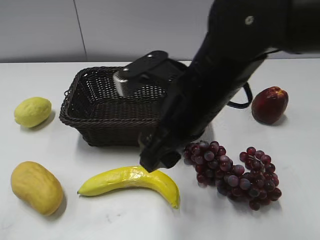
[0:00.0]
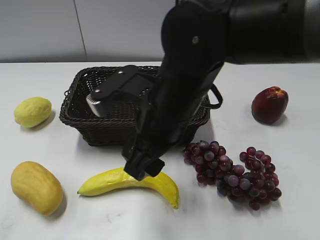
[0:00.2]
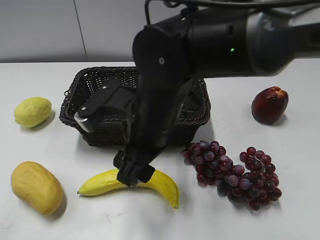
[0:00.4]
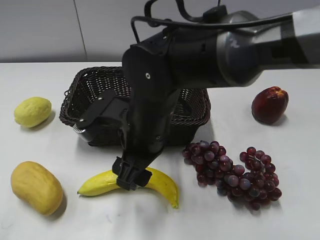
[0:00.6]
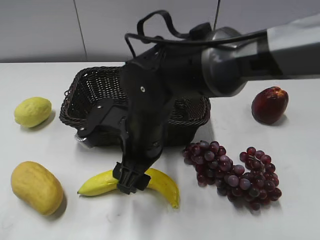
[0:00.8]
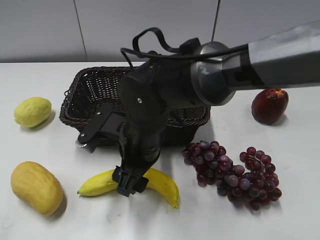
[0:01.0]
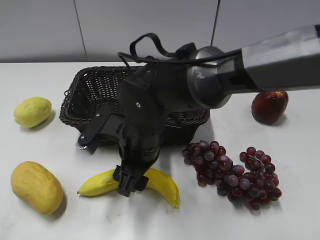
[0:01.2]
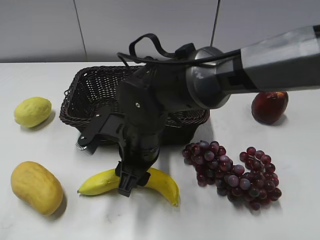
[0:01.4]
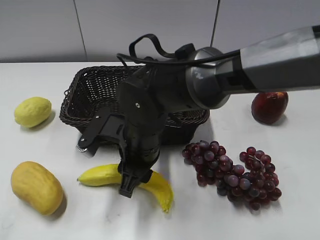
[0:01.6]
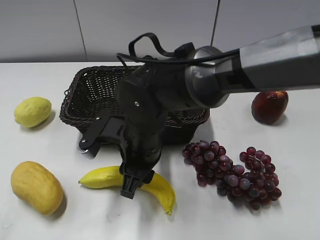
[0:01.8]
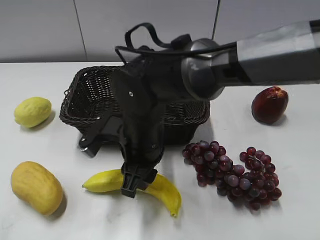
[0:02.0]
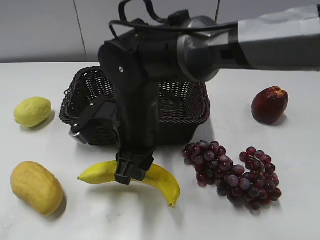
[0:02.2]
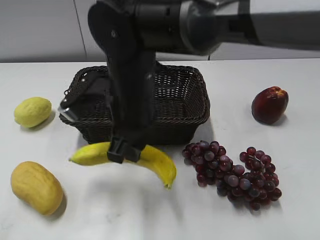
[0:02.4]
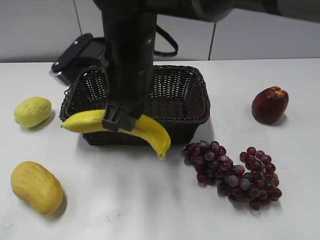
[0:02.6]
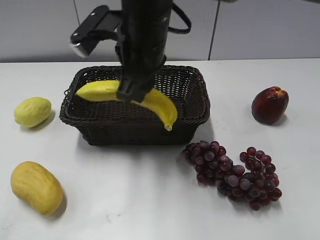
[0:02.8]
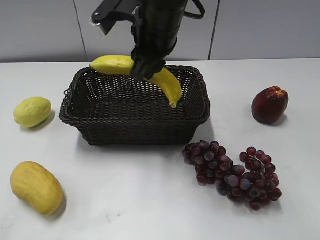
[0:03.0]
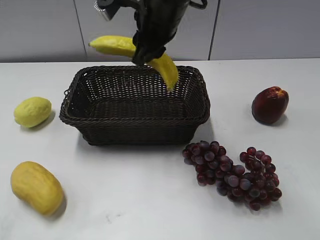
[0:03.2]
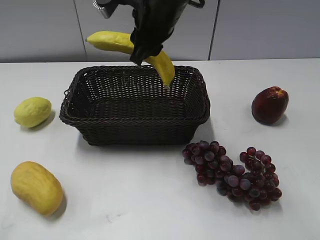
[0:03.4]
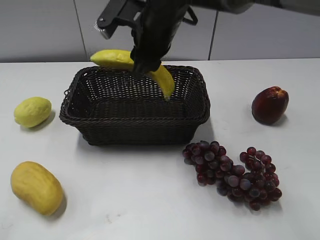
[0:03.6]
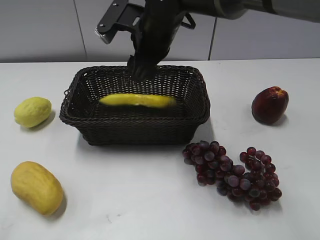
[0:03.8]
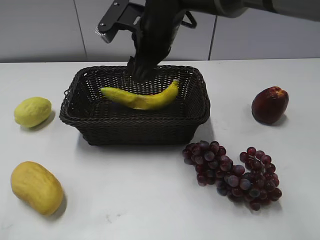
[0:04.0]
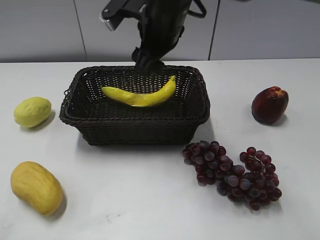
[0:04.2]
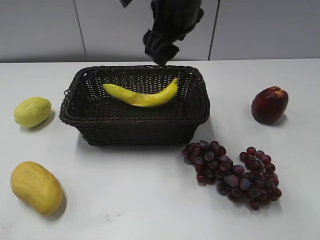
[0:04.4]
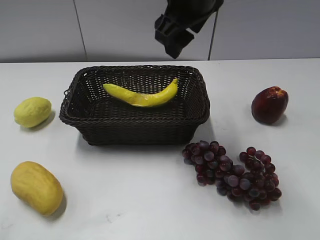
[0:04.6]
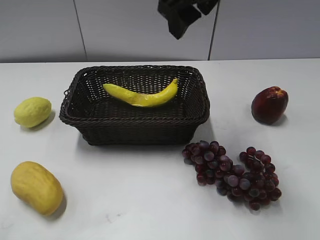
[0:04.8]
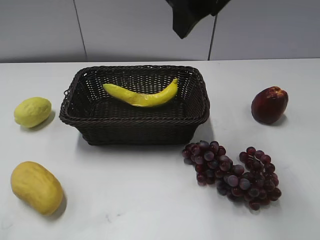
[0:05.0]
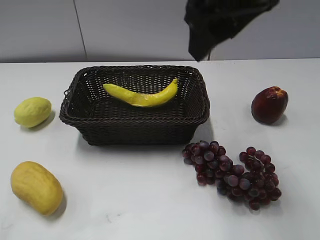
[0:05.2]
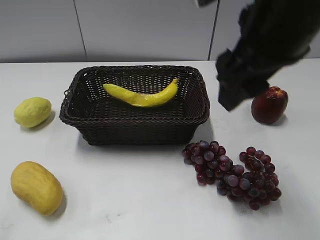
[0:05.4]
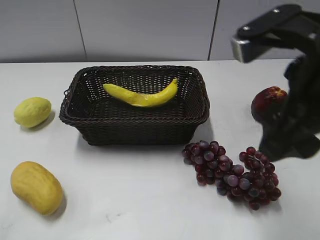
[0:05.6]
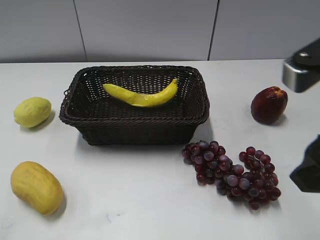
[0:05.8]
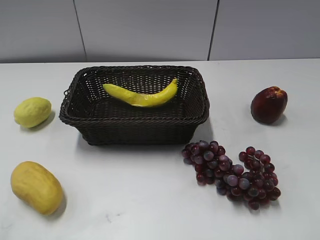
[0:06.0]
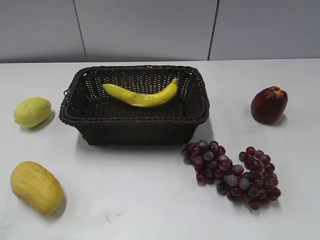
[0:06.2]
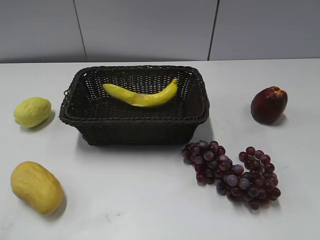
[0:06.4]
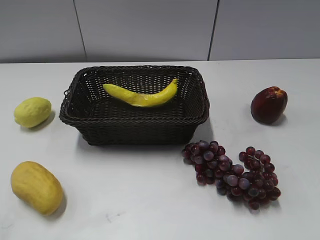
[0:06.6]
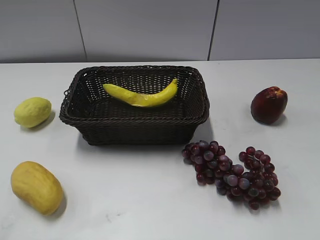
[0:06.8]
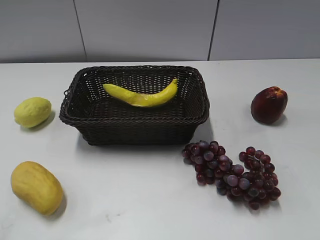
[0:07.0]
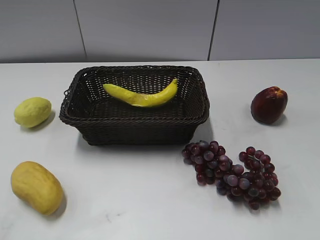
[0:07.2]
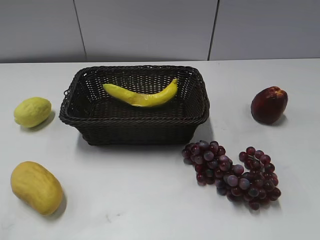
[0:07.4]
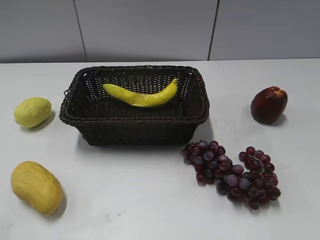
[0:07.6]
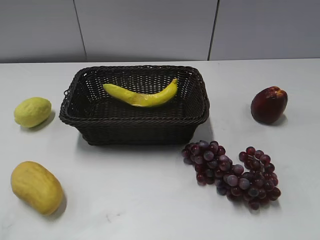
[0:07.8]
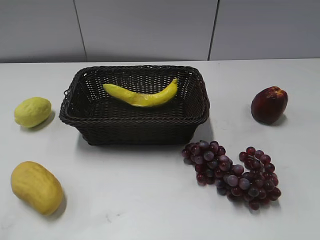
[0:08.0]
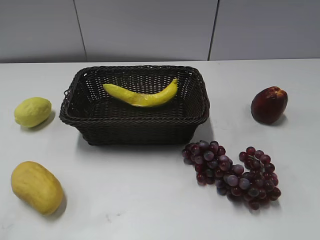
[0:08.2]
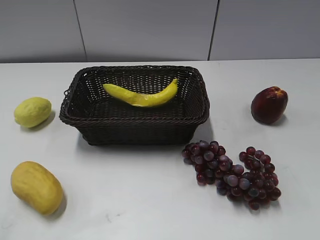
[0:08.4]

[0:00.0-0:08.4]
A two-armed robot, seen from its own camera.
Step, 0:00.0 to 0:01.4: Grasp the banana with right gripper.
Step, 0:01.8 to 0:03.8: Place the banana in the basket with right gripper.
0:00.0 to 0:01.4: The right gripper heads downward and to the left, covering some 15 cm, and closes up.
0:01.4 to 0:02.8: The right gripper shifts some 15 cm upward and forward, and closes.
0:02.8 to 0:04.2: The right gripper is displaced forward by some 5 cm, and opens.
0:04.2 to 0:05.6: The right gripper goes some 25 cm backward and to the right.
0:05.6 to 0:07.0: The right gripper travels backward and to the right by approximately 25 cm.

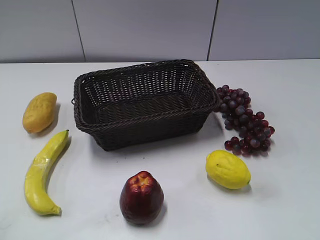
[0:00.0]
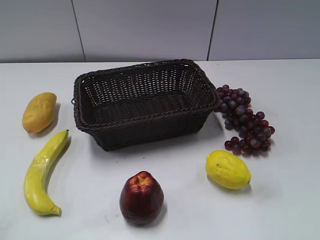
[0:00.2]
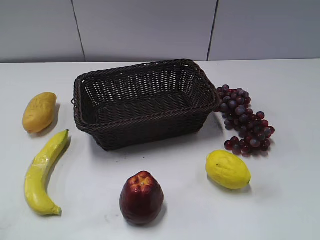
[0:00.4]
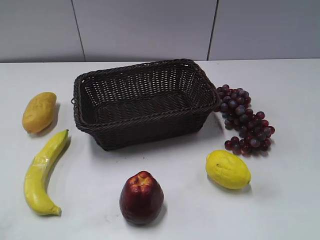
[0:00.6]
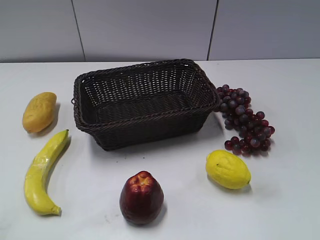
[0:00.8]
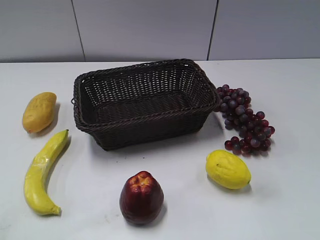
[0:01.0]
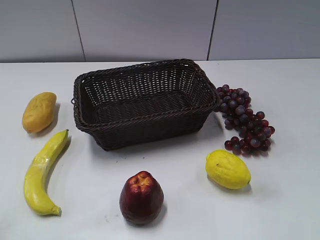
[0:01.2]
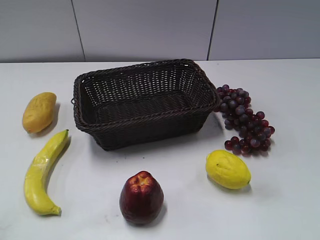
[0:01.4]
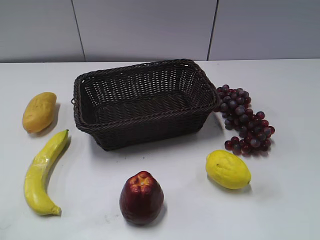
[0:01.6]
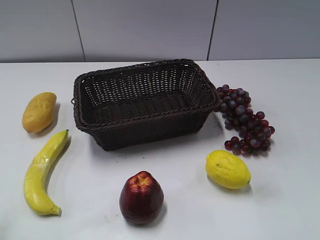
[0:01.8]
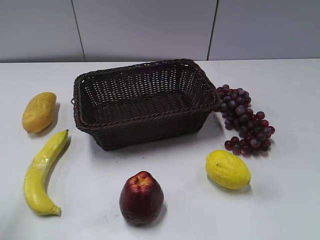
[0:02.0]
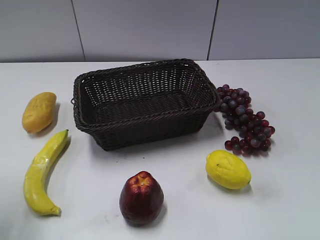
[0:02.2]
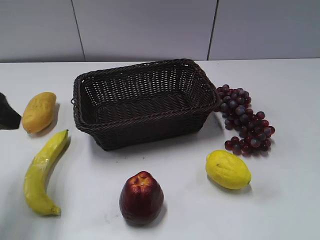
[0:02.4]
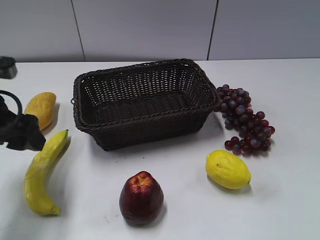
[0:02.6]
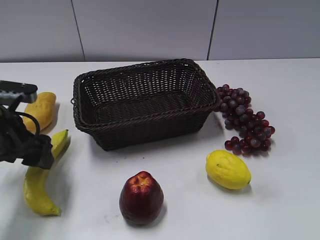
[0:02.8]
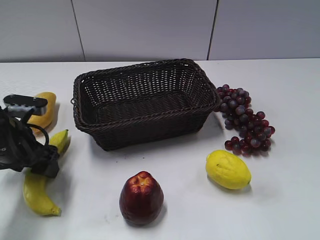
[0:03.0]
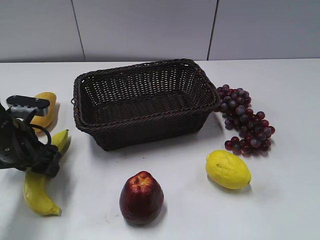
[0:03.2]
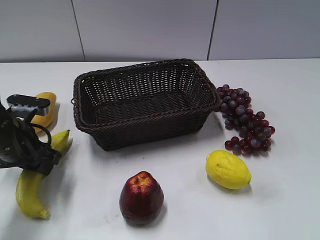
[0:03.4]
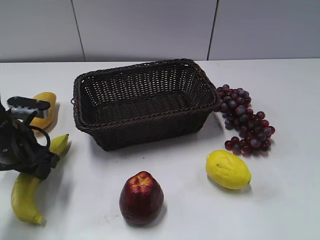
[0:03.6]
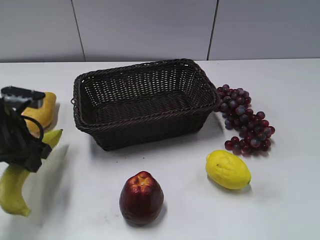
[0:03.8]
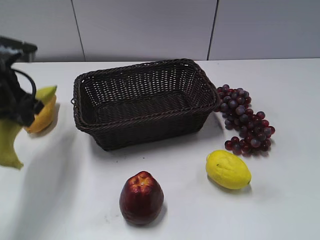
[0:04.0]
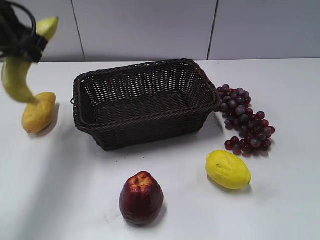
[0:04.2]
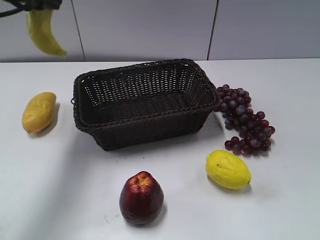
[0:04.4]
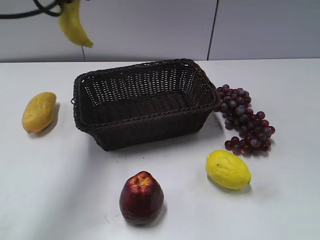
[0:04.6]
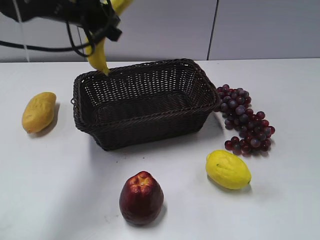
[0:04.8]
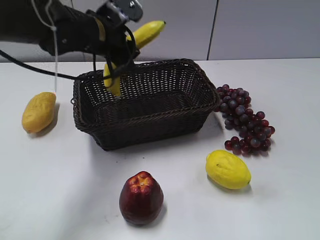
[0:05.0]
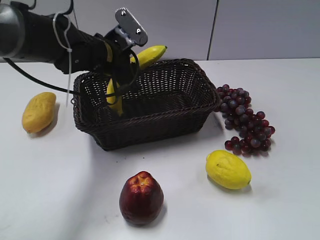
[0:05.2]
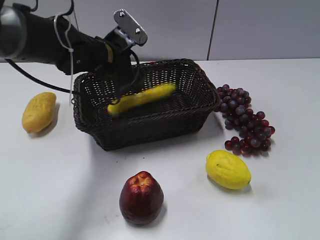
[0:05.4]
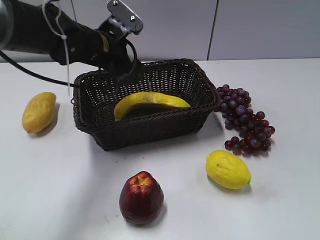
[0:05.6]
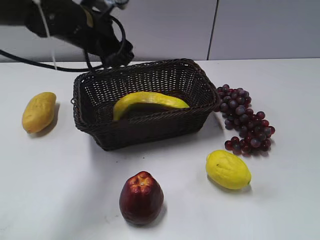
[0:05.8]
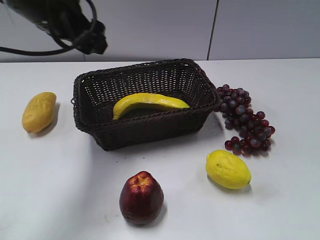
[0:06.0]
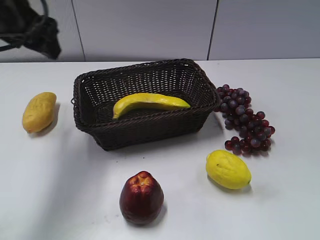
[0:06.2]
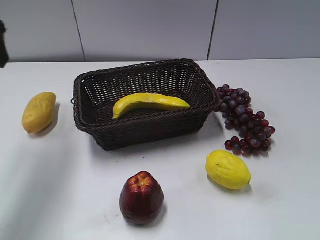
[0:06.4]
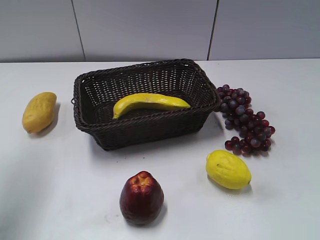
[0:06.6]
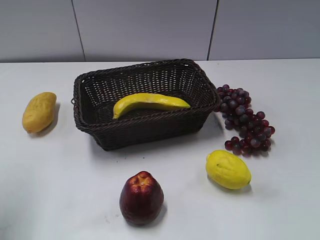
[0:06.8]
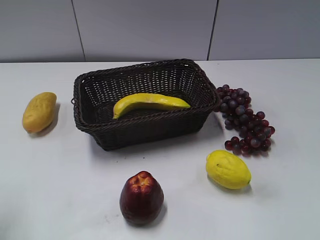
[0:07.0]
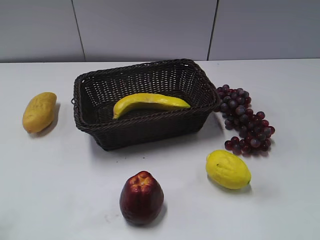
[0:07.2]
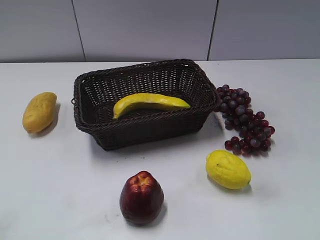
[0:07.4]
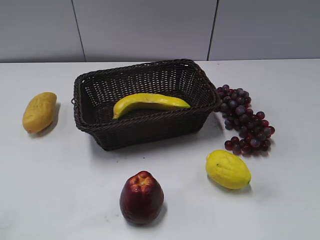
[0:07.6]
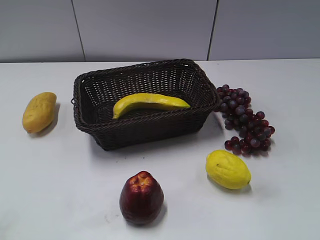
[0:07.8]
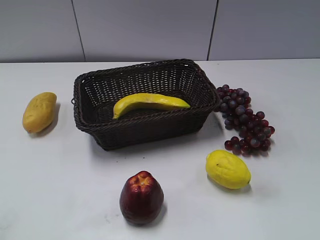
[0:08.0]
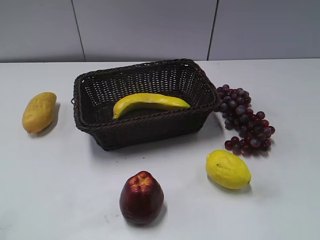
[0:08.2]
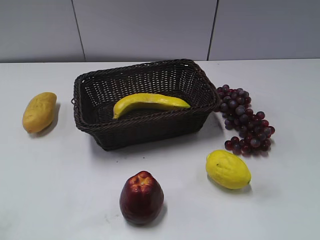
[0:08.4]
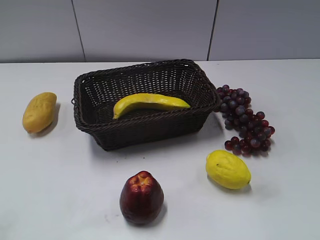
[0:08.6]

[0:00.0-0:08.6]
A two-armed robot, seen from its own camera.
Step, 0:02.4 to 0:03.4: Grasp the banana with left gripper.
Step, 0:03.8 to 0:05.4: Place the banana in the basket with left gripper.
0:01.4 to 0:02.8: The left gripper shifts about 30 cm forward and downward, and opens.
0:02.8 to 0:04.4: The left gripper heads upward and forward, covering roughly 20 cm, and closes up.
0:04.4 to 0:05.8: The left gripper is displaced to the right and downward by roughly 15 cm, and opens its fingers.
0:05.8 to 0:07.2: The left gripper shifts some 35 cm backward and to the left.

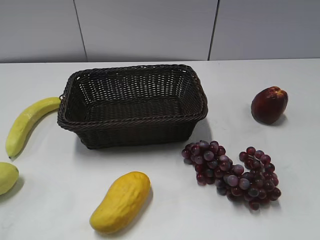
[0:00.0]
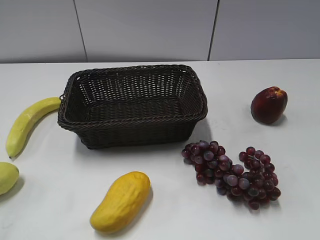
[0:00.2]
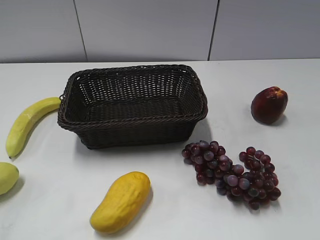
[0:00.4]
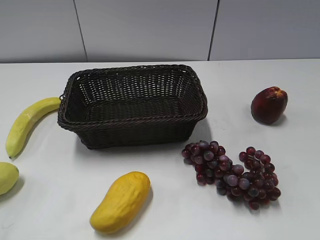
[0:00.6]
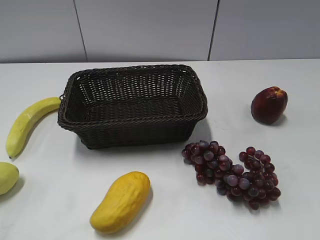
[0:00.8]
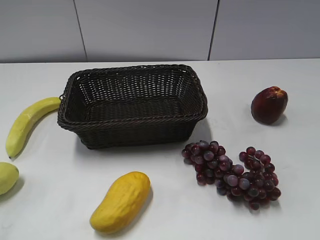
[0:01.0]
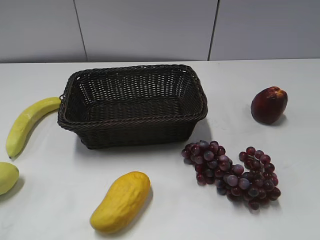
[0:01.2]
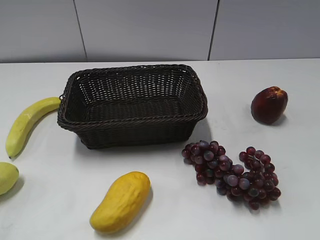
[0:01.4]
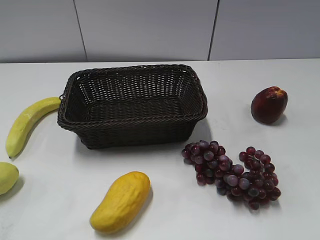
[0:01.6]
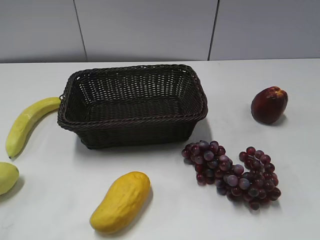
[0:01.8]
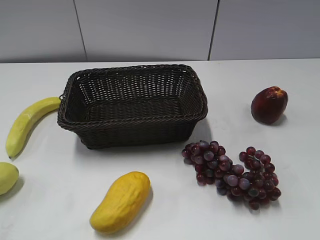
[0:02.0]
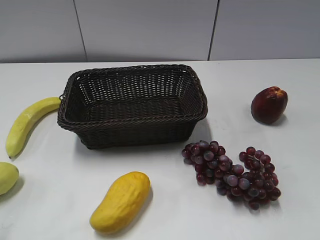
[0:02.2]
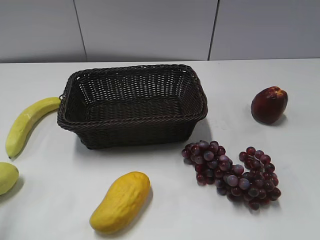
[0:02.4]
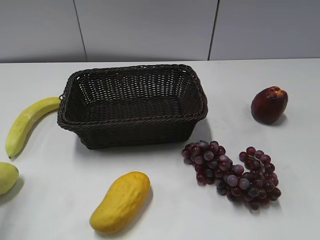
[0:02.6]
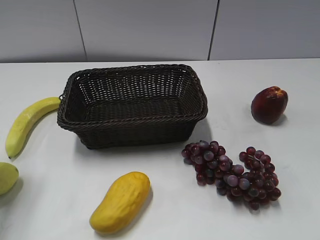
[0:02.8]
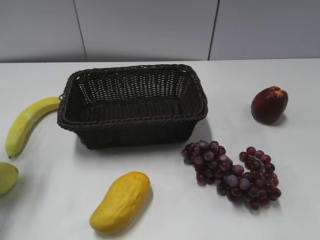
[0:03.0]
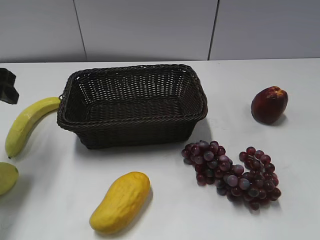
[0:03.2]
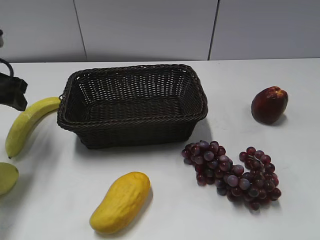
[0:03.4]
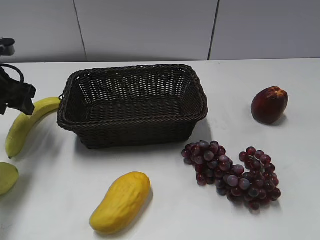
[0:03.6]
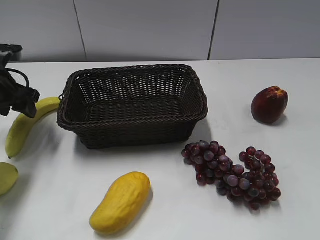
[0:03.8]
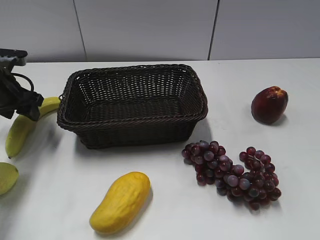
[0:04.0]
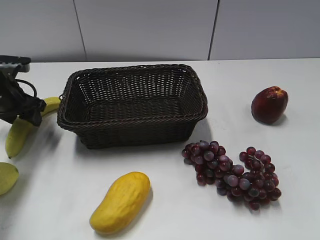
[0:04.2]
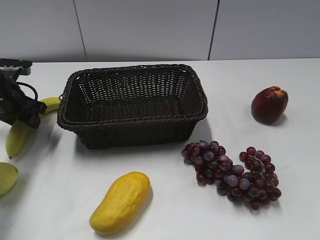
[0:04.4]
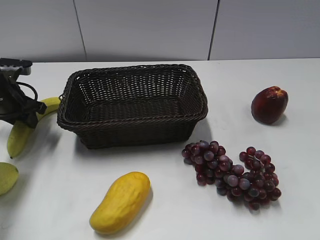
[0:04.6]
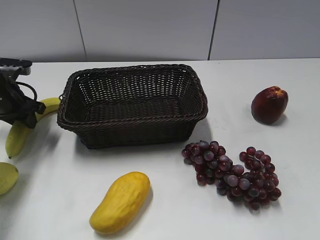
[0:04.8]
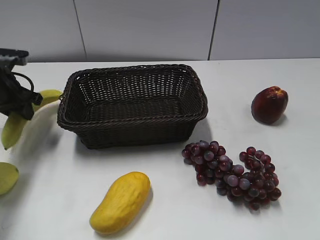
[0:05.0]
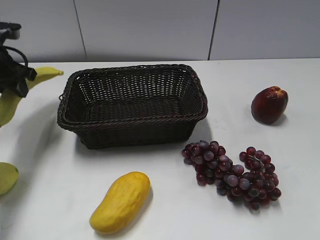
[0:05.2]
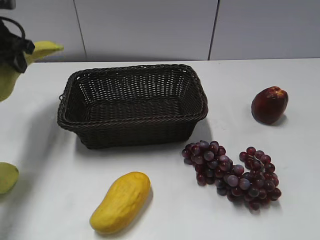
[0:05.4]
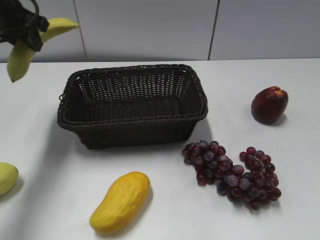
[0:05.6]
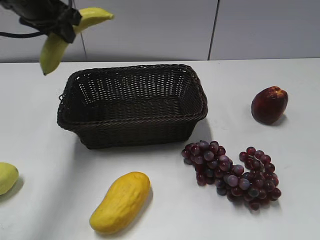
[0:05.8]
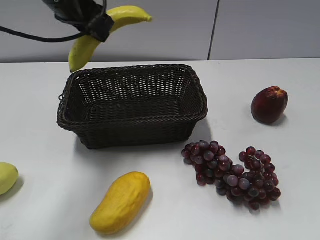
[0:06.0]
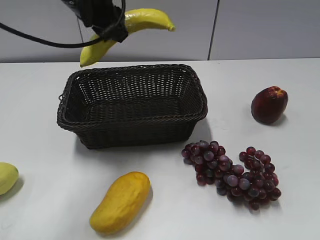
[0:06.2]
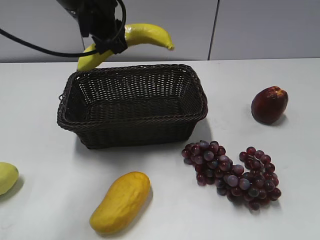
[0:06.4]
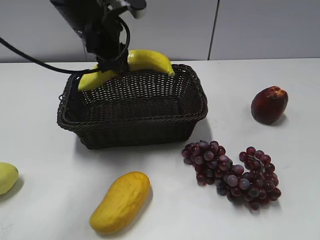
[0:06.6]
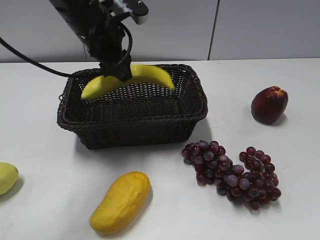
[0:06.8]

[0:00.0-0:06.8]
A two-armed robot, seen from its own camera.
Step, 0:03.2 to 0:04.6: Grasp the banana with left gripper.
0:01.4 to 0:02.8: The left gripper goes some 25 cm forward.
0:02.8 to 0:04.0: The left gripper moves forward and downward, approximately 20 cm.
0:04.0 to 0:05.4: The left gripper travels upward by roughly 10 cm, and closes.
0:05.4 to 0:06.8: The left gripper shifts approximately 20 cm to the right.
